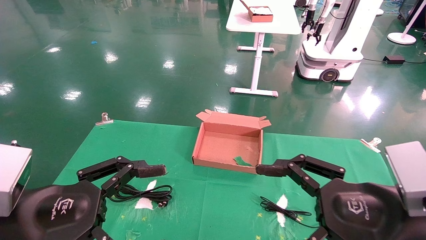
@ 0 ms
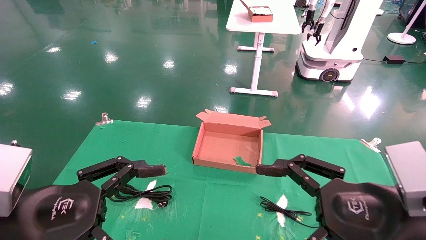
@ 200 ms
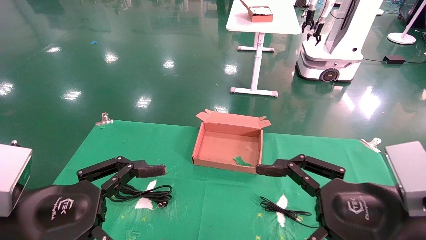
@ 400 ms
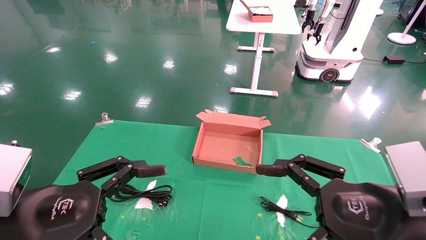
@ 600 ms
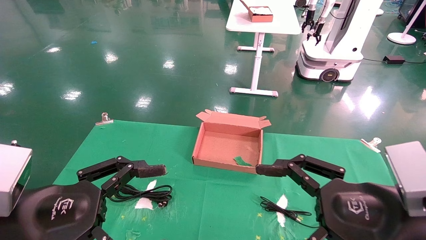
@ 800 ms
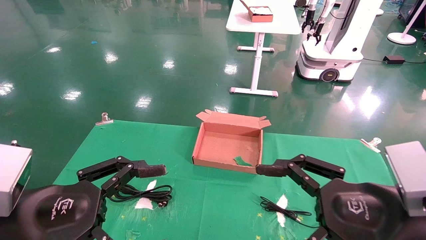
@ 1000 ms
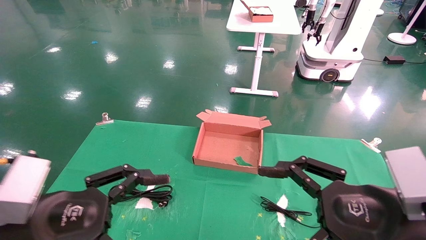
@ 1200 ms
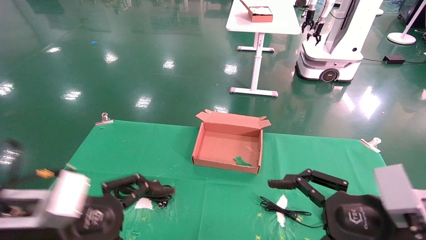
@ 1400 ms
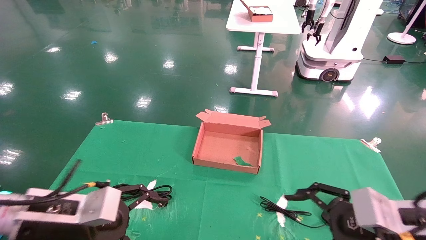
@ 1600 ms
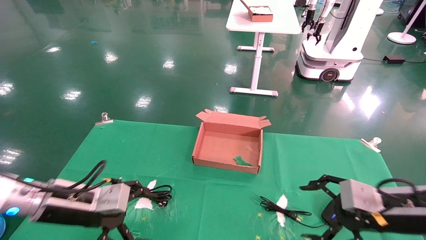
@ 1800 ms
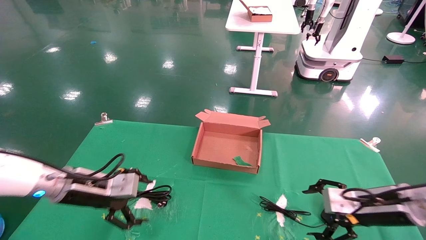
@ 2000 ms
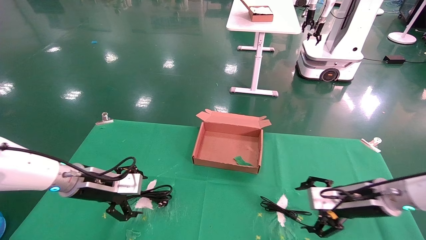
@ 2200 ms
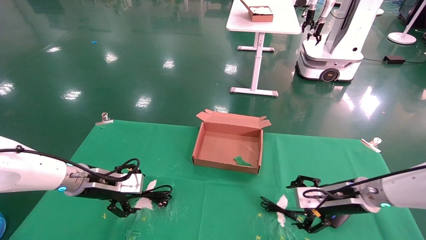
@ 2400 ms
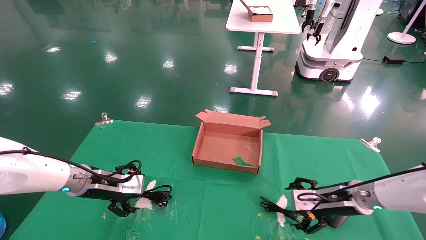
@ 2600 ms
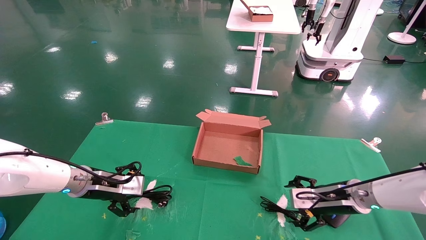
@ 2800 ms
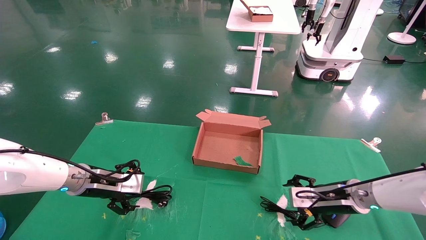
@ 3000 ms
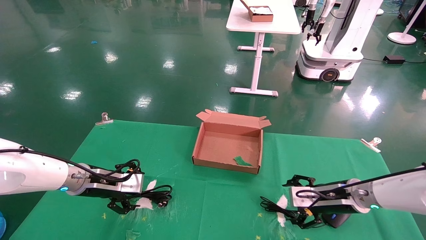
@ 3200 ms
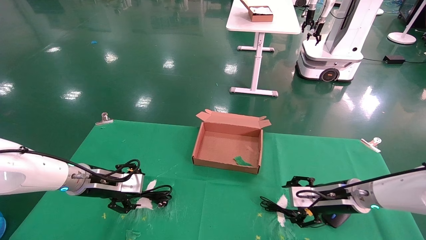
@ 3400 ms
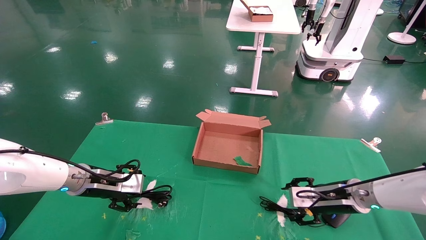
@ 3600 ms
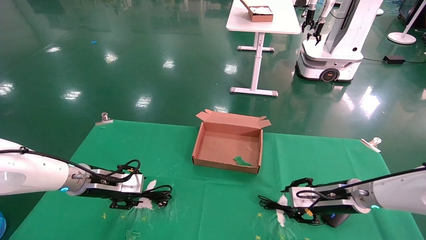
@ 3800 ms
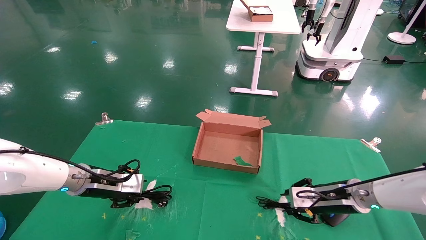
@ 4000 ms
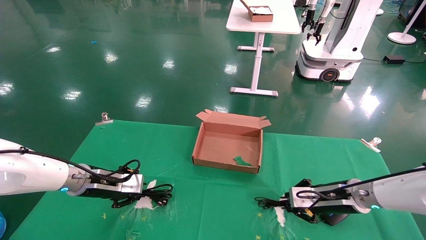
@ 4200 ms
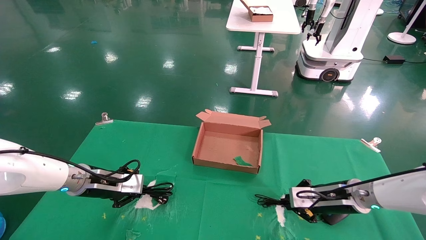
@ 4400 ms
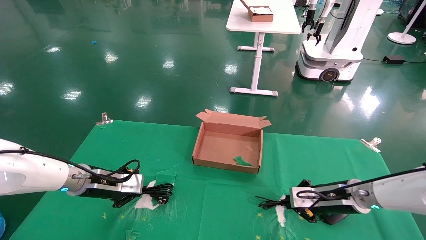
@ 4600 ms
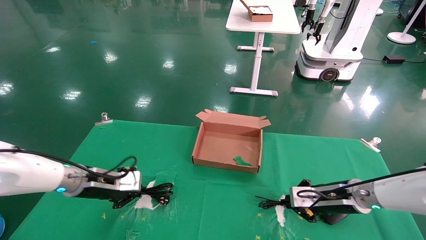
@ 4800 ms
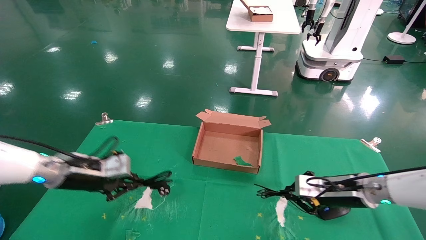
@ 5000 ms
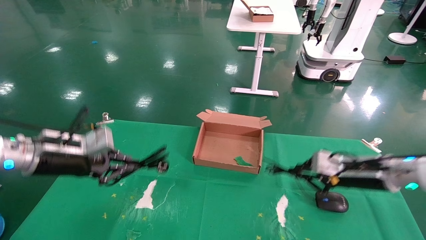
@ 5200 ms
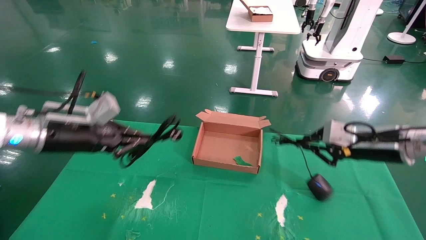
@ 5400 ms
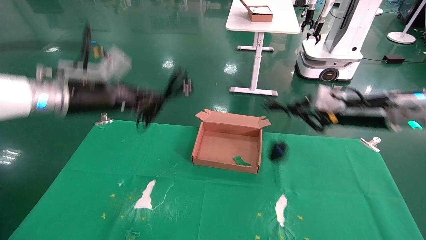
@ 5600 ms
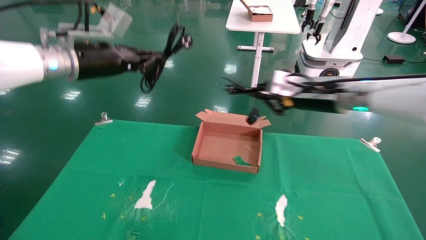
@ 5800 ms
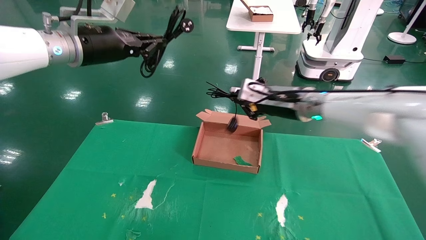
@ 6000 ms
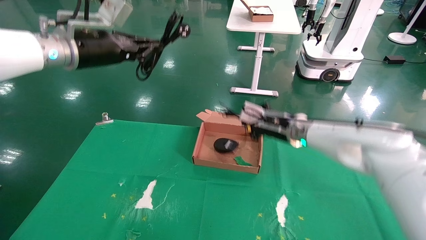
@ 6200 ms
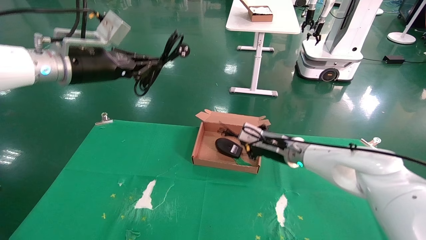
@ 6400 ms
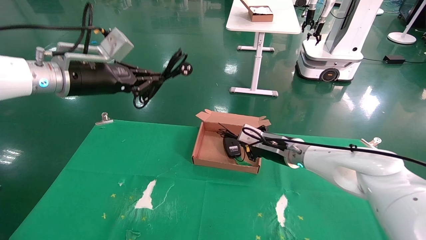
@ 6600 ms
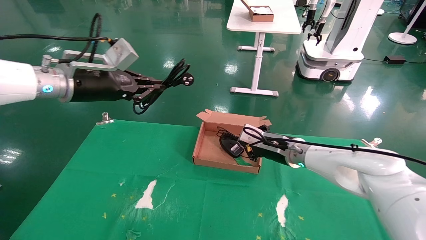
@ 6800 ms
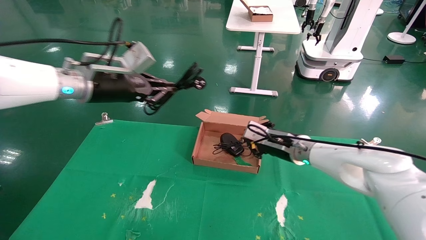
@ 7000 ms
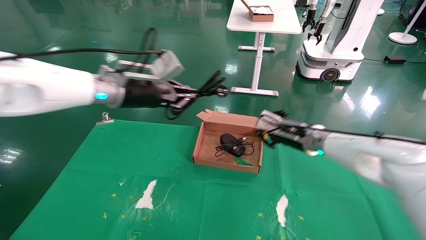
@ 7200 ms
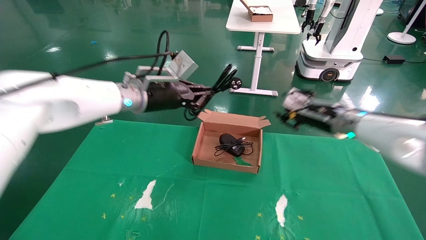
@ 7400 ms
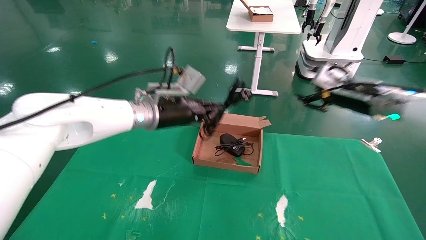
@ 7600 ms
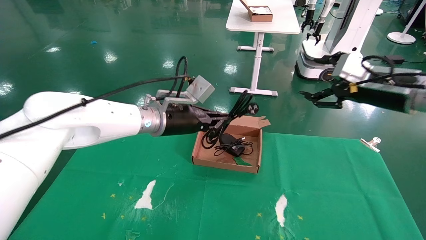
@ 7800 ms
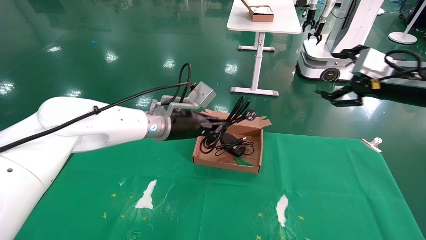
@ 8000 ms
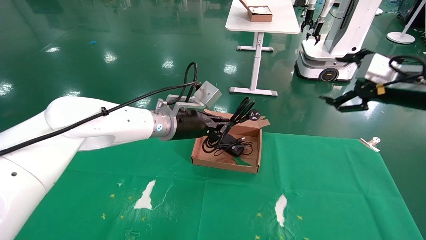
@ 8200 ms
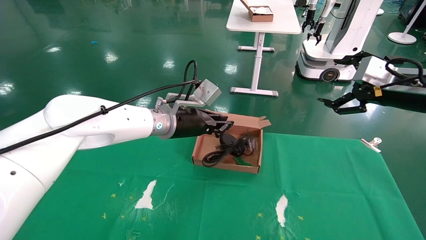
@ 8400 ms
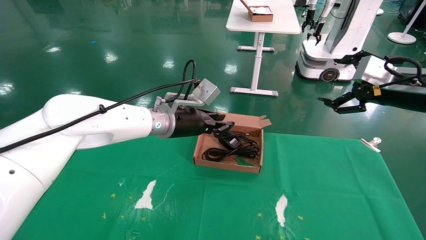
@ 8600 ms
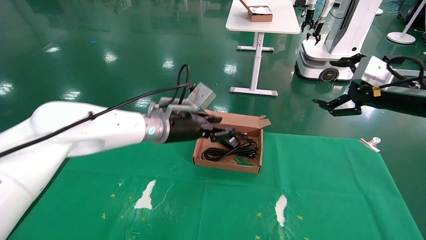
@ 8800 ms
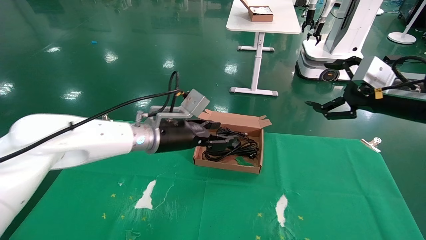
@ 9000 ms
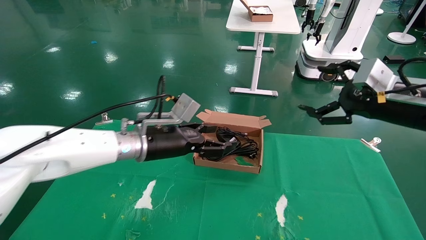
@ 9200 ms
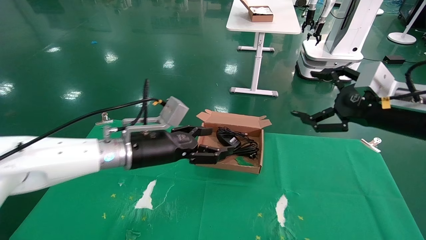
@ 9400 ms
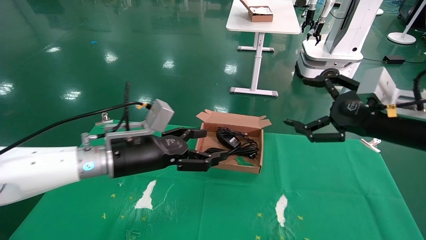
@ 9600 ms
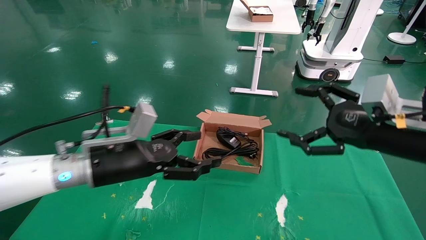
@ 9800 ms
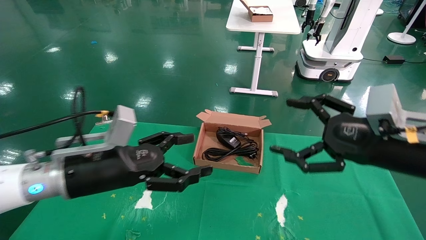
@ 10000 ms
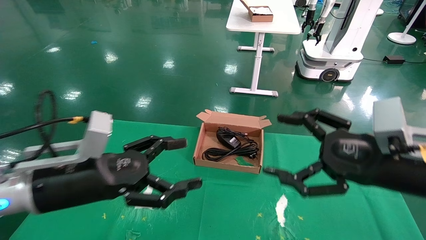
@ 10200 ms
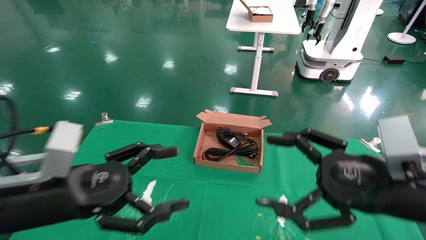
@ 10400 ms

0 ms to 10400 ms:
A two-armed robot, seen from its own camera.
Step, 1800 ms to 5200 ms: Grab and lift both the mouse and power cord from the accessory packaging area at the same time.
Step, 5400 ms to 9200 ms: Place the mouse and power cord into the box.
0 ms to 1400 ms: The right gripper changes place by about 5 cm, while the left gripper is displaced forward by approximately 5 cm.
1400 ms to 3000 ms: The left gripper shifts about 20 cm forward. Meanwhile the right gripper goes roughly 20 cm forward and downward.
3000 ms to 4400 ms: The left gripper closes; the right gripper closes.
4400 ms to 6000 ms: The right gripper travels upward and to the left by about 20 cm. Meanwhile the left gripper travels upward by roughly 25 cm.
6000 ms to 7400 ms: The left gripper travels to the right and downward by approximately 15 cm, while the right gripper is displaced to the right by approximately 10 cm, and opens.
7400 ms to 9000 ms: The right gripper heads backward, to the right and upward, covering roughly 15 cm, and opens up; the left gripper shifts about 10 cm downward, and opens up.
9000 ms to 10400 ms: The left gripper shifts roughly 25 cm backward and to the left, and opens up; the right gripper heads backward, to the left and downward, covering approximately 20 cm.

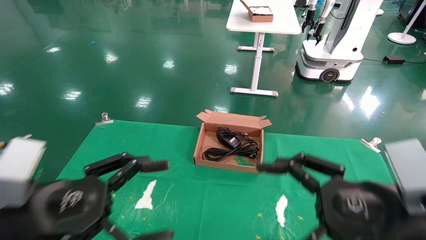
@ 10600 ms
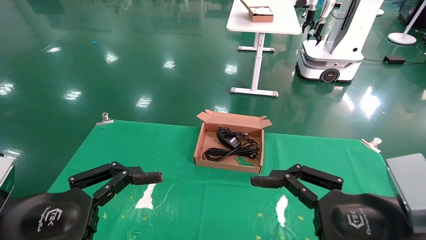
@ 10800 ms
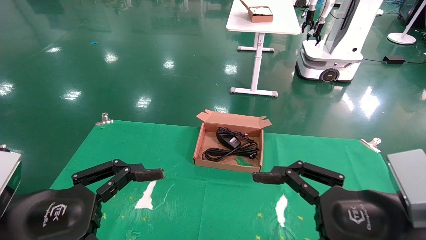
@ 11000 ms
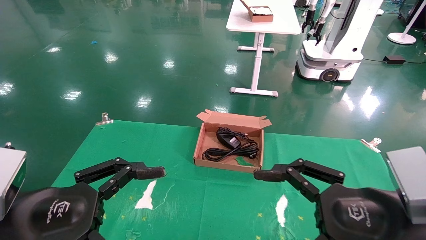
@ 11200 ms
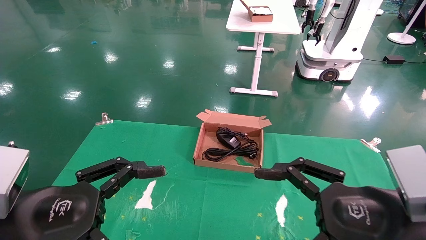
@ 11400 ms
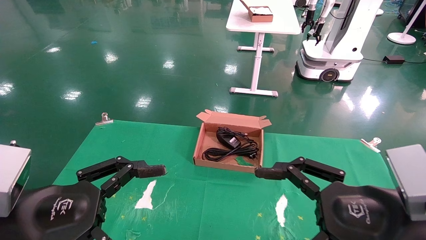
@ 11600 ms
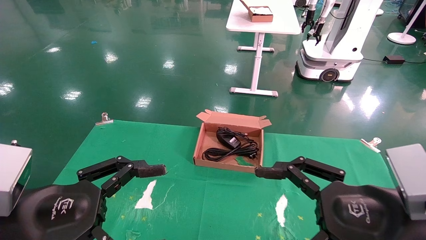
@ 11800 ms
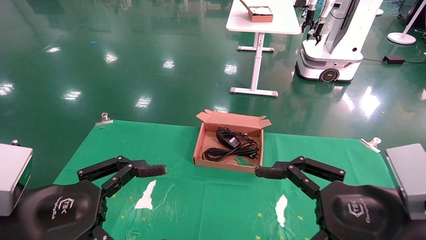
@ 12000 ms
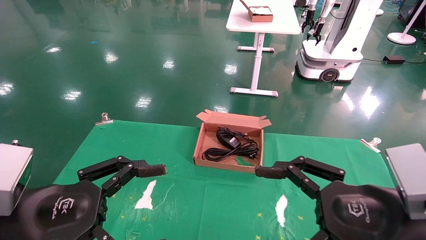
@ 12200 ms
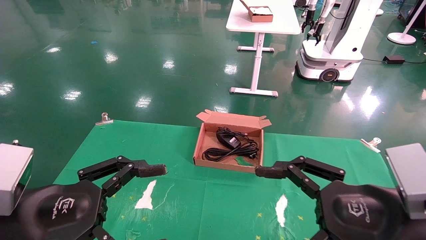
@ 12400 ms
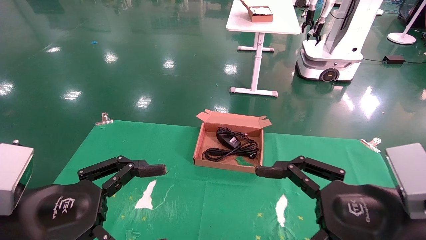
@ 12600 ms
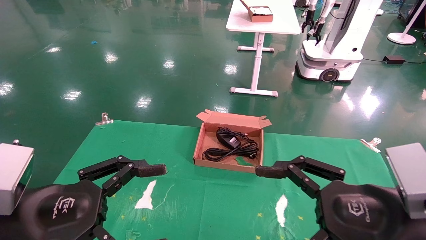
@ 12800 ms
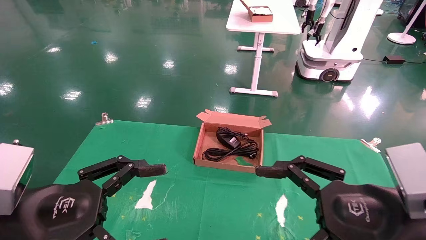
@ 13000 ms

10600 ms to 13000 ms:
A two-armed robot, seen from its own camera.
10600 ms to 11800 ms: The grippers move only a little.
11800 ms to 13000 ms: Both grippers stay about where they are.
